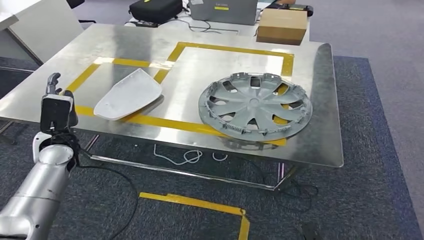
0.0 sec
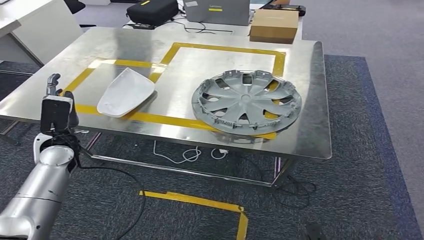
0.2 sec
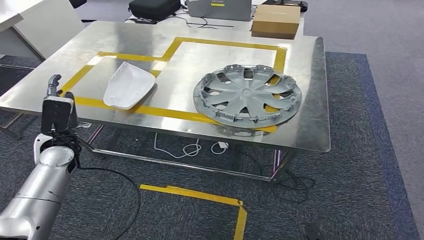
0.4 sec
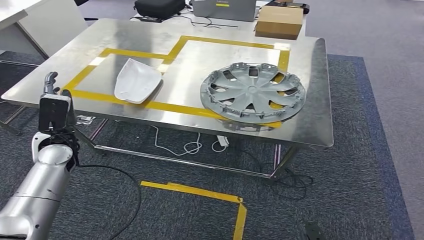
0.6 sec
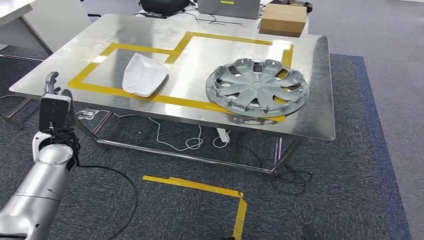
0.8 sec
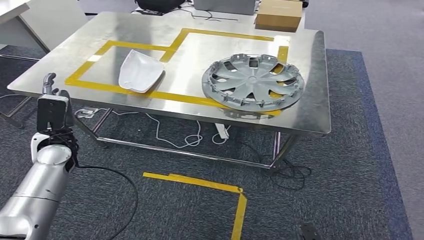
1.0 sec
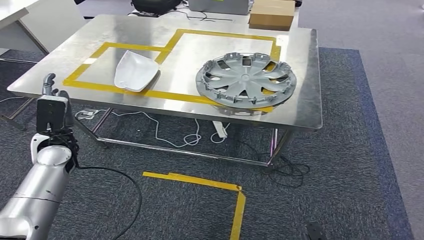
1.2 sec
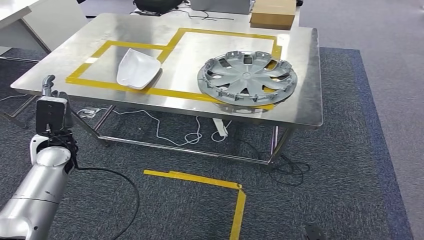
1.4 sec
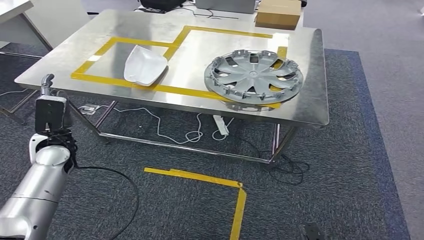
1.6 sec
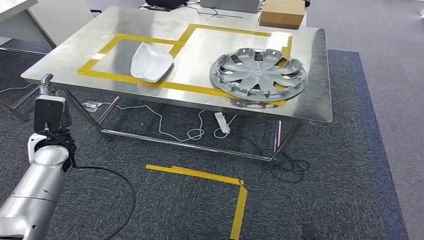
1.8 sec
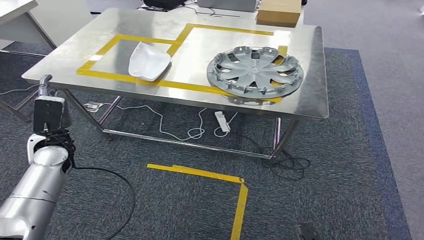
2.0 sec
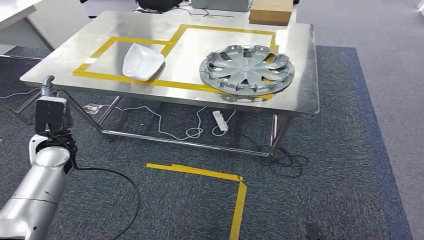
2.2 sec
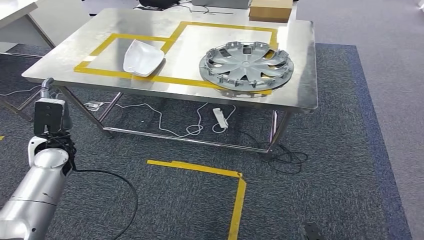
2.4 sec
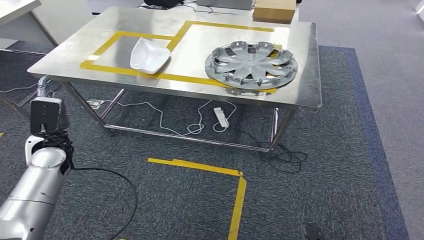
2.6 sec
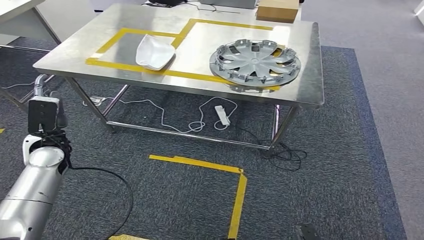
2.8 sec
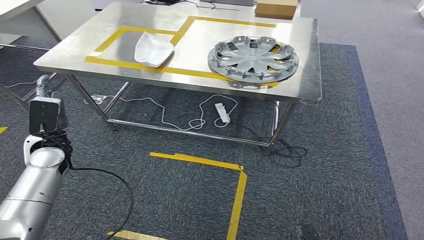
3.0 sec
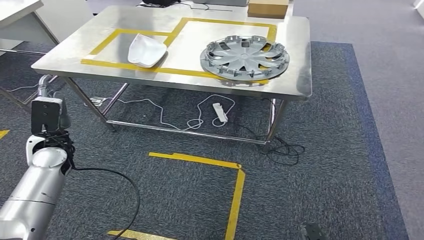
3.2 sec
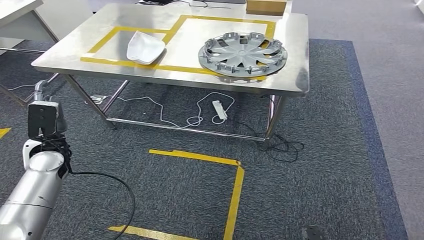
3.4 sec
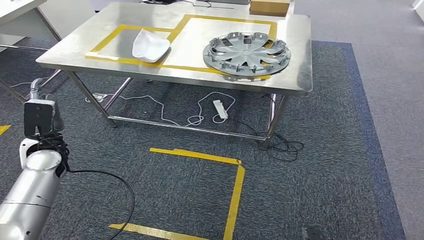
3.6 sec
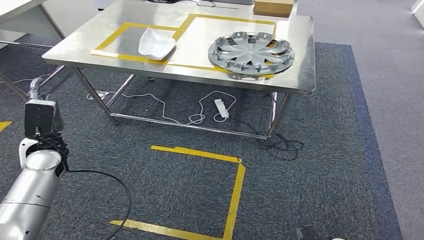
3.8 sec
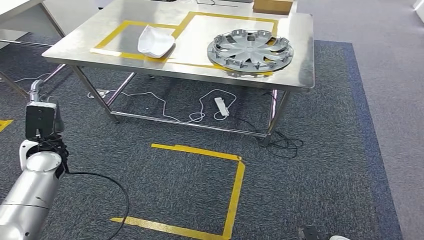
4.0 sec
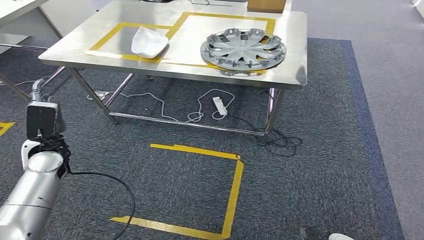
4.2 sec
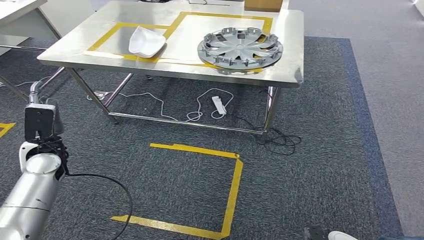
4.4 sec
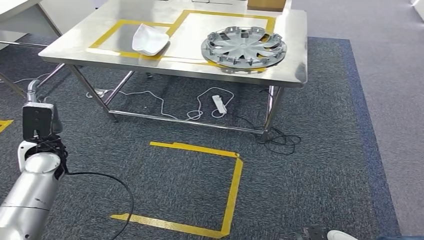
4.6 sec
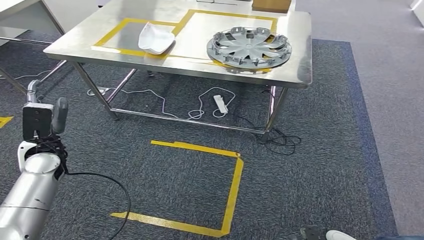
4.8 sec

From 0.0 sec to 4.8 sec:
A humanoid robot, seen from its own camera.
Step, from 0.2 sec to 4.8 sec: Move to the initial position of the workbench.

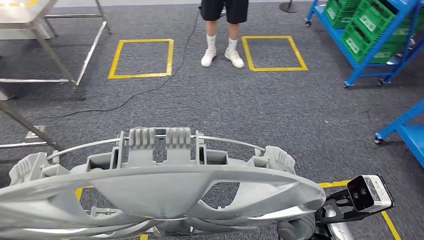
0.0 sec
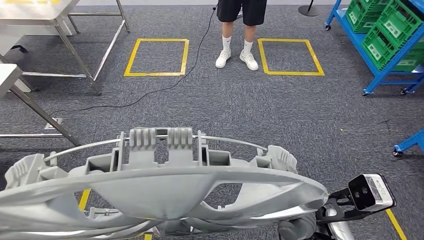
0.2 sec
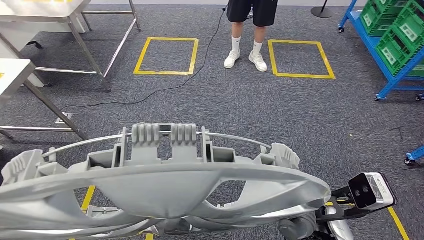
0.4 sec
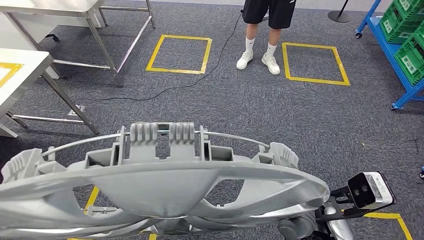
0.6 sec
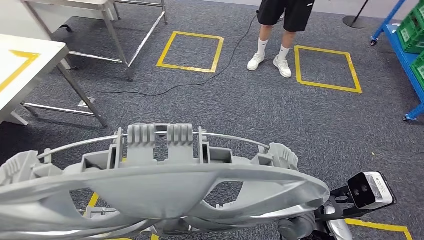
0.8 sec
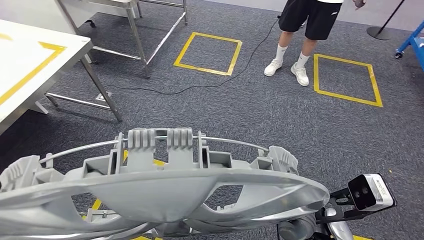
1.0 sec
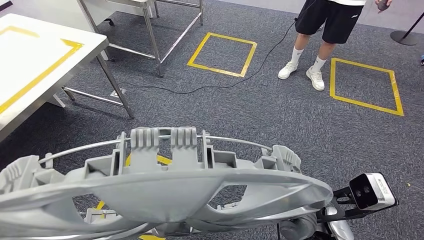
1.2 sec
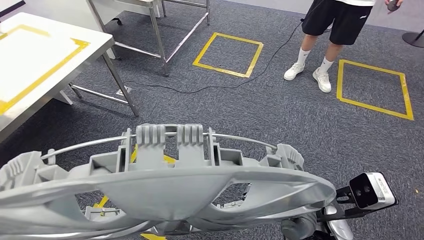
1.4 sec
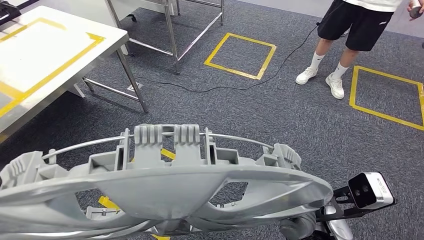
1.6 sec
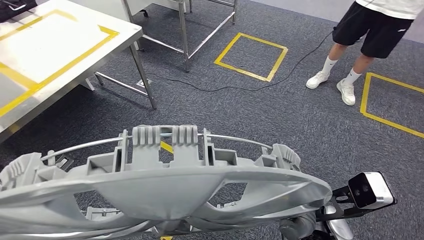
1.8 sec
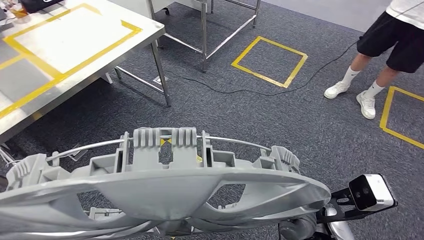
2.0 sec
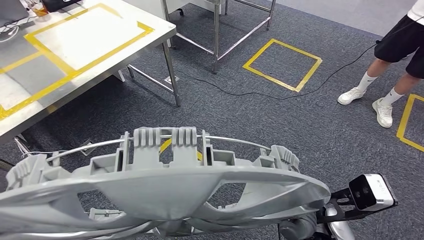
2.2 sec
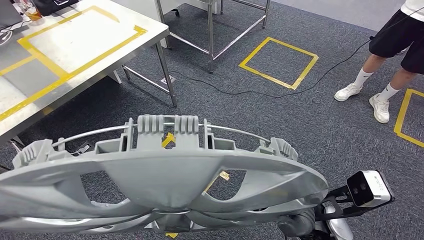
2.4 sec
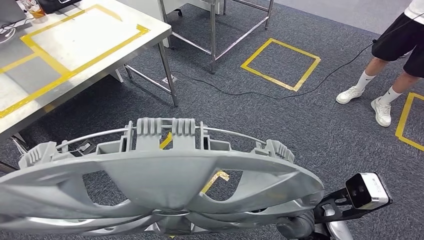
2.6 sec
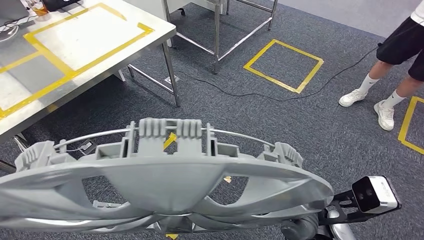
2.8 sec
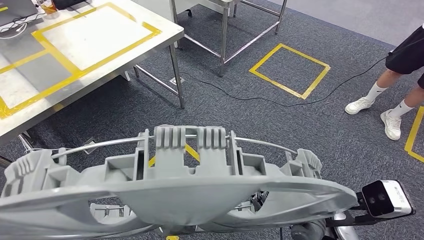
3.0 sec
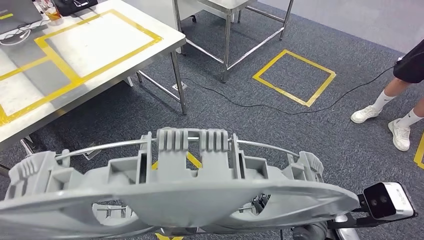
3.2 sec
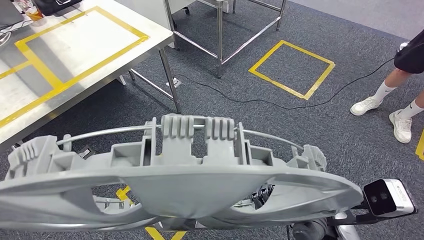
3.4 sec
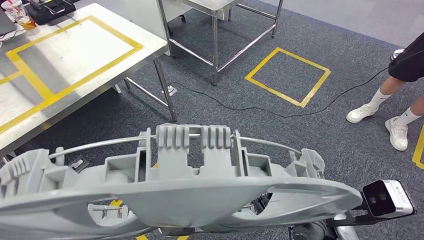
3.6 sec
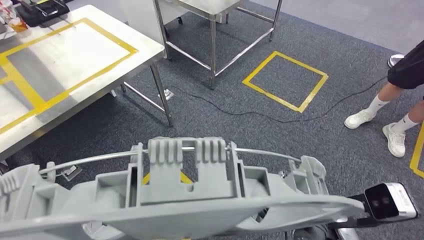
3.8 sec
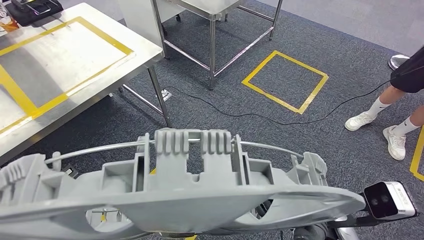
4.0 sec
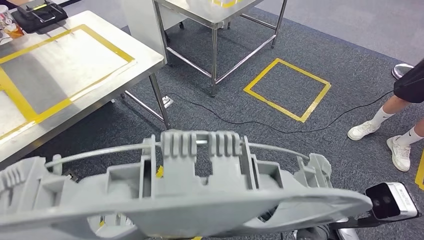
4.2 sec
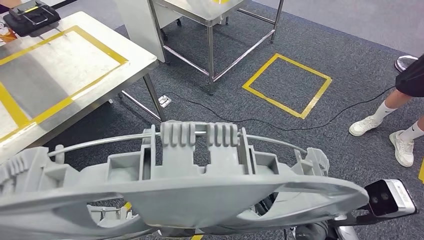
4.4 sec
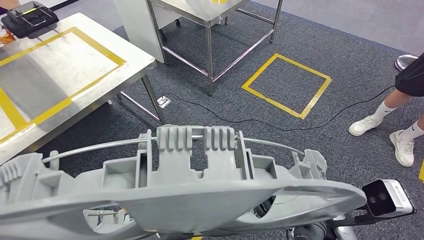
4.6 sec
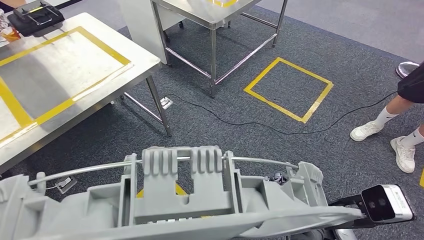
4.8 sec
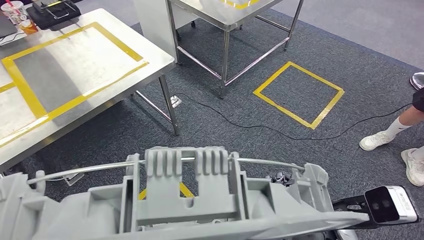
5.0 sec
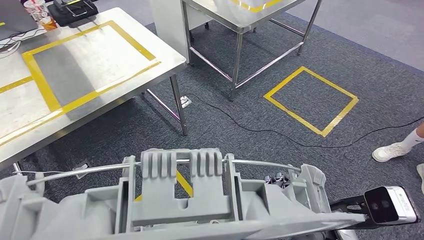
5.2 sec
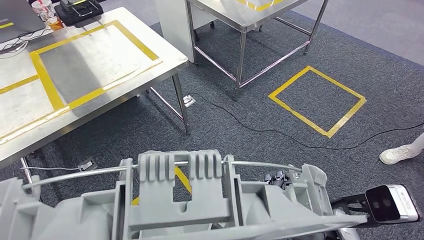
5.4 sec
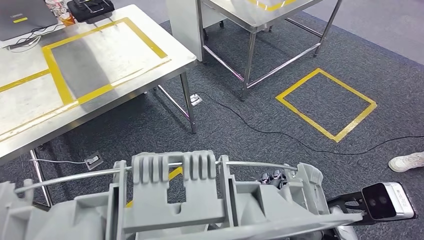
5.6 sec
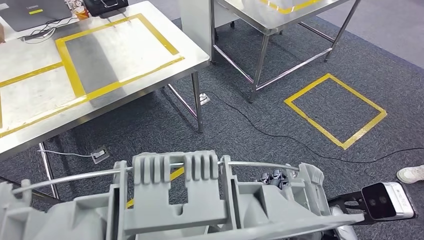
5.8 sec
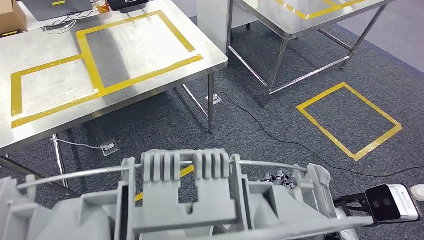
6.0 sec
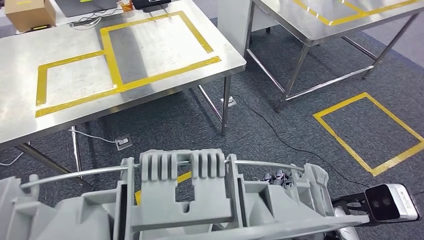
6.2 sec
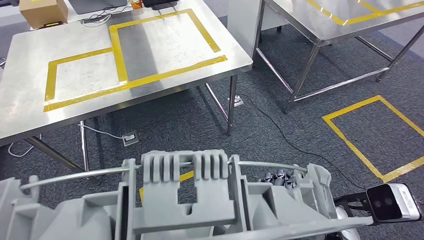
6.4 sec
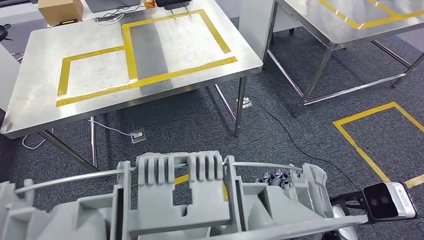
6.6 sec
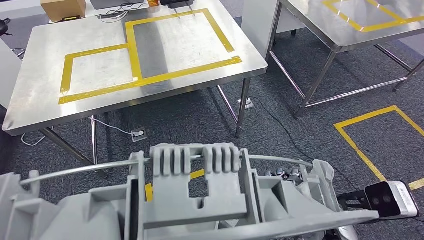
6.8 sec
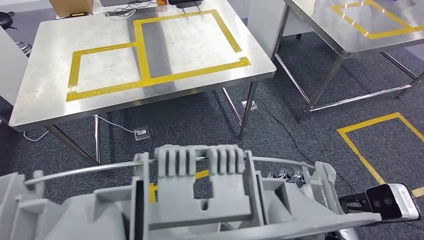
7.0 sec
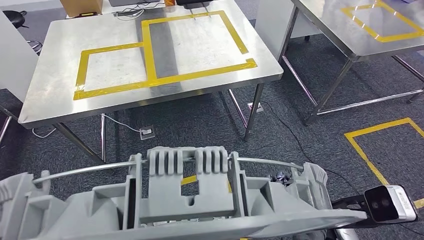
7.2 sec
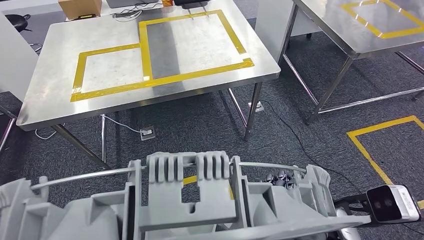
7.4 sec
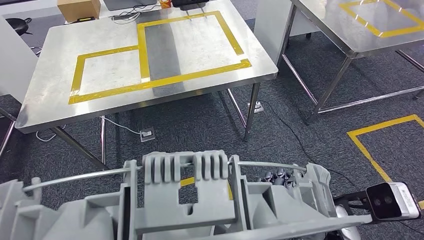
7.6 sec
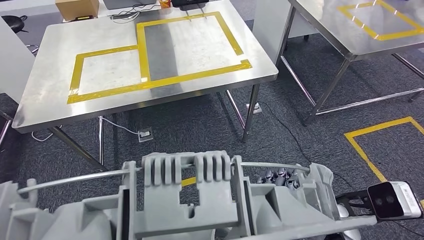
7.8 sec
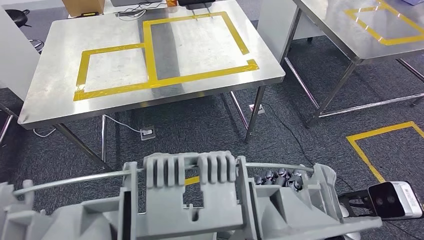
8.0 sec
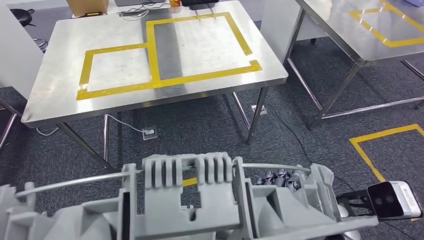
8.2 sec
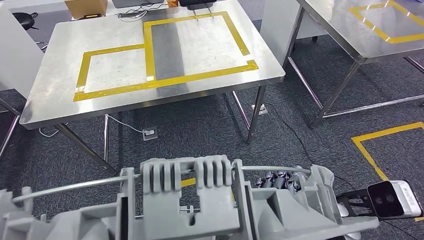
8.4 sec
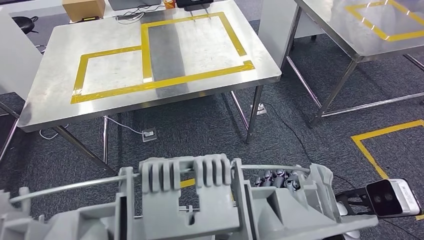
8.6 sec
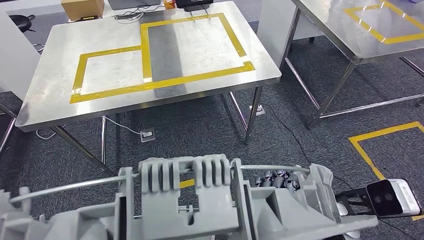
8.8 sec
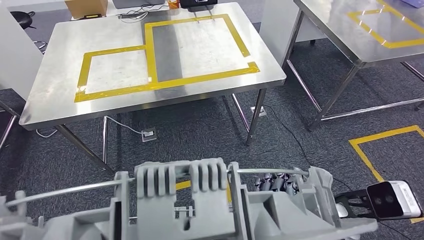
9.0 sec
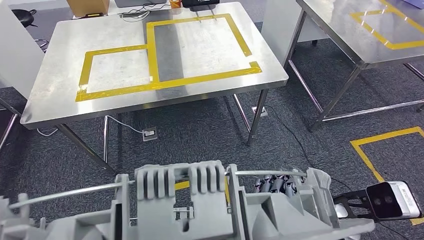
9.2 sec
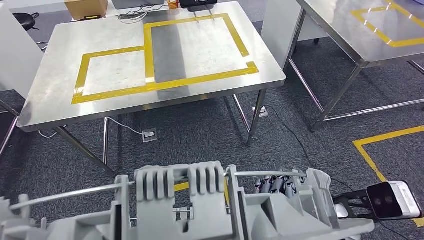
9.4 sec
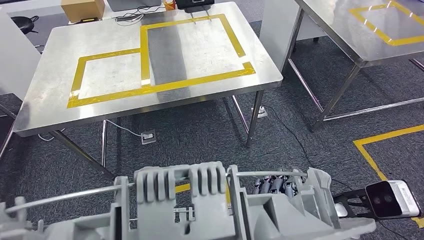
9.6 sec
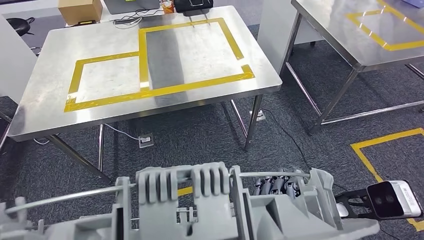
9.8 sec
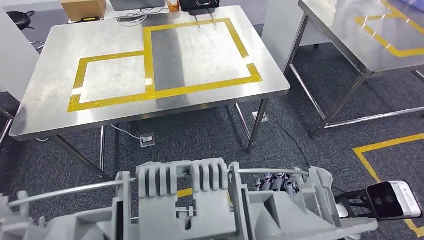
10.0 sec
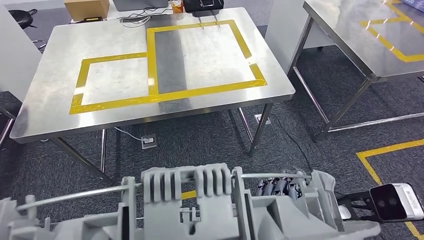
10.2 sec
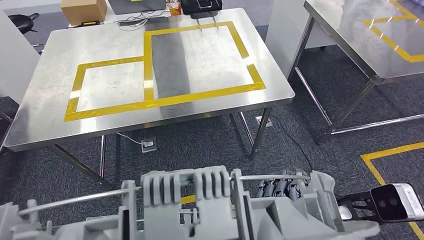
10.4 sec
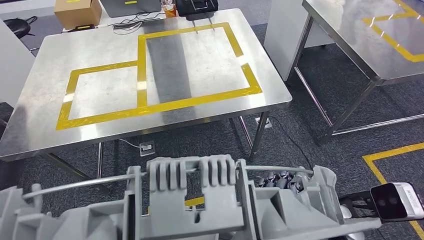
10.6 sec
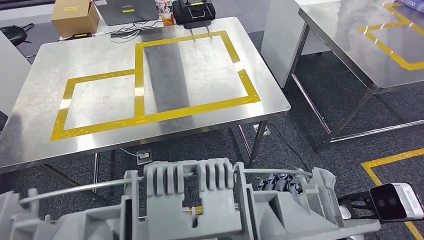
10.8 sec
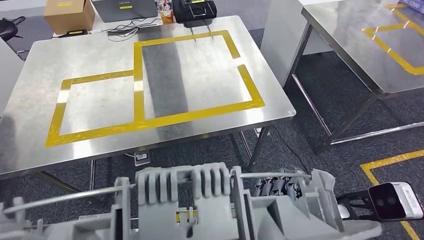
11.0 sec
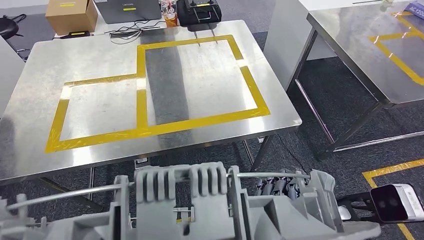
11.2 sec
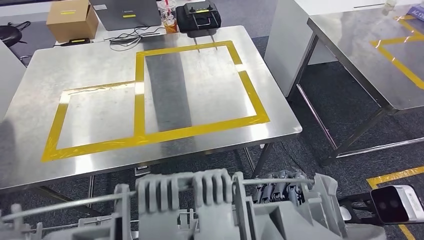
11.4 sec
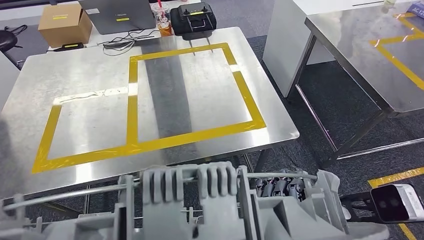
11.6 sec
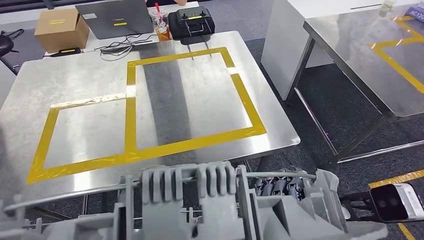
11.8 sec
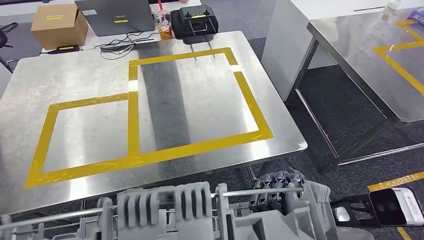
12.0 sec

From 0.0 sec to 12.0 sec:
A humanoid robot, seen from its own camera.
Step, from 0.0 sec to 5.8 sec: Move the small parts to the workbench.
